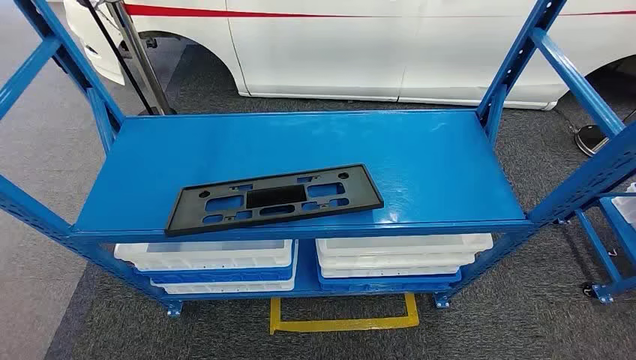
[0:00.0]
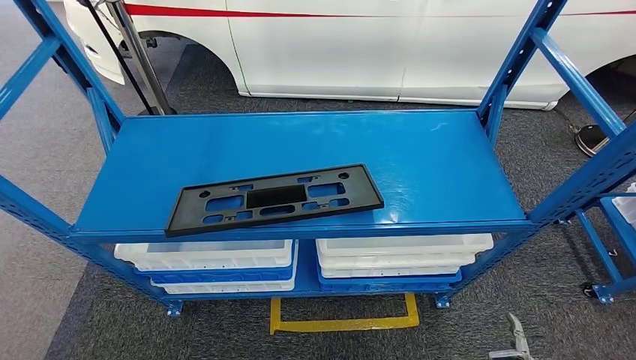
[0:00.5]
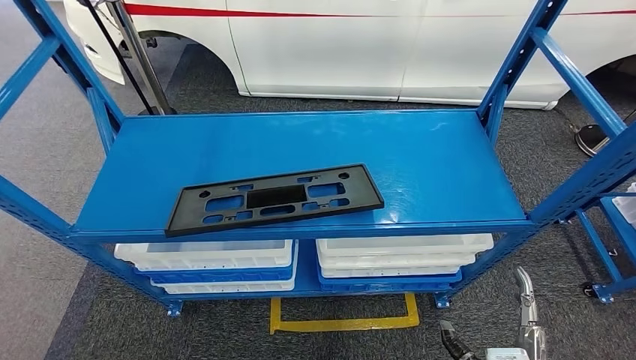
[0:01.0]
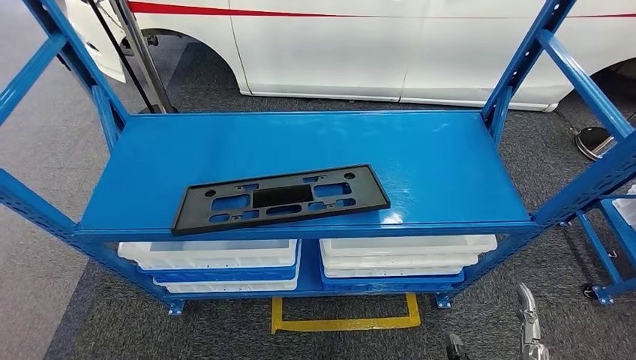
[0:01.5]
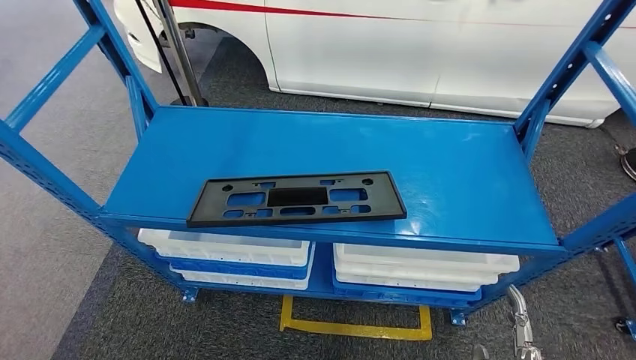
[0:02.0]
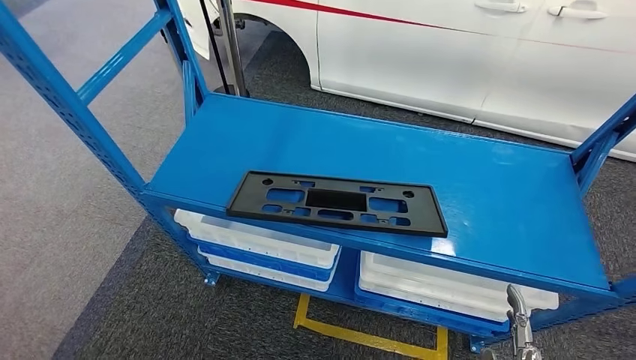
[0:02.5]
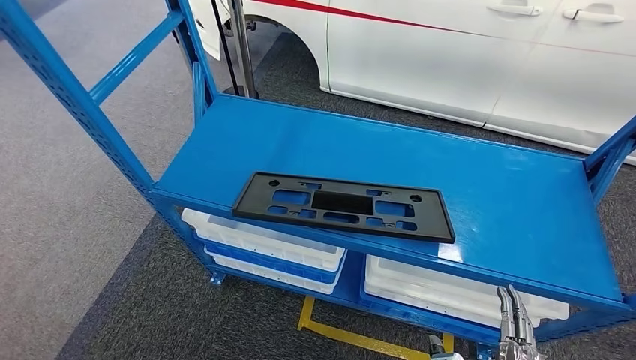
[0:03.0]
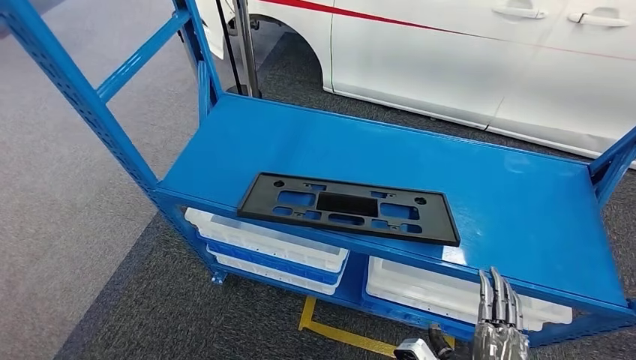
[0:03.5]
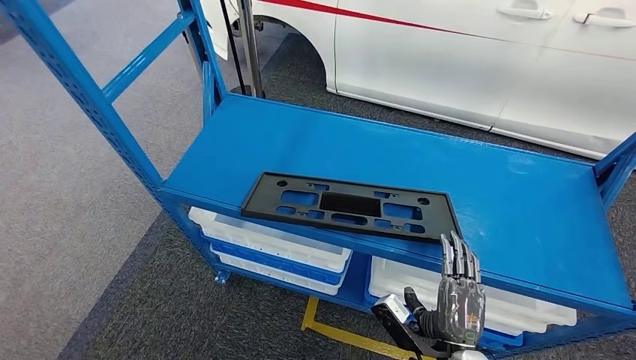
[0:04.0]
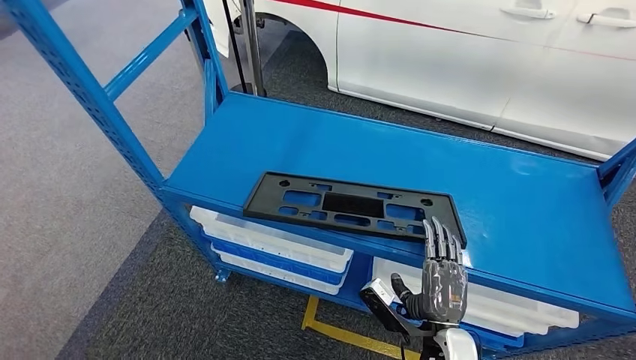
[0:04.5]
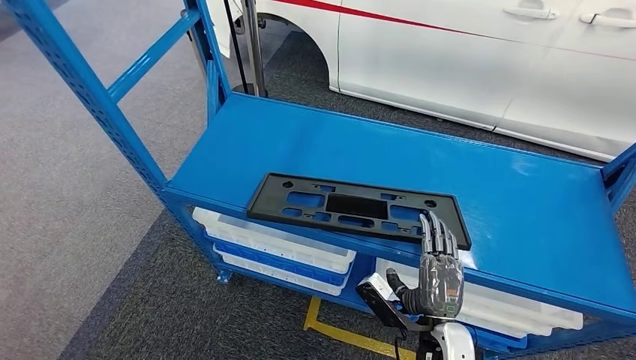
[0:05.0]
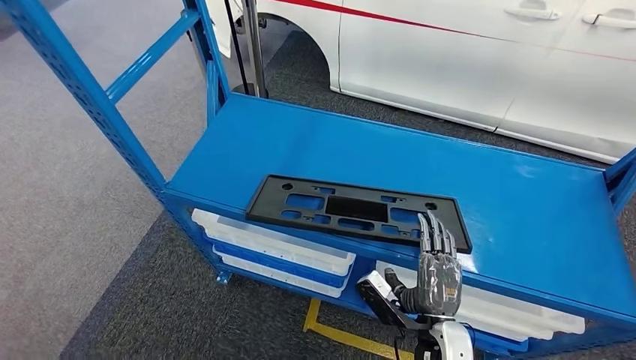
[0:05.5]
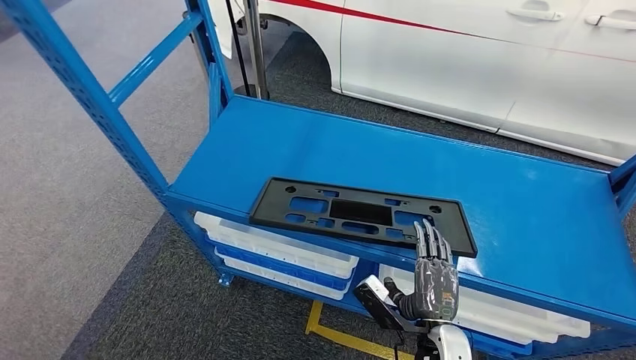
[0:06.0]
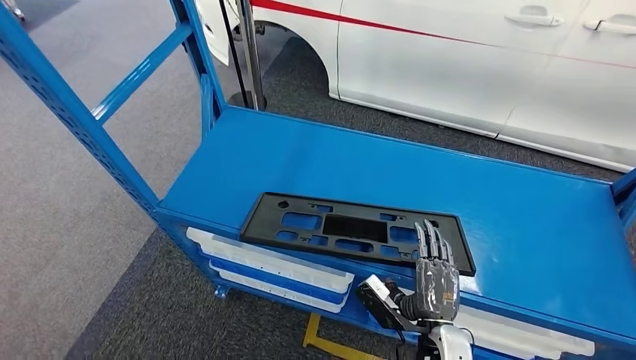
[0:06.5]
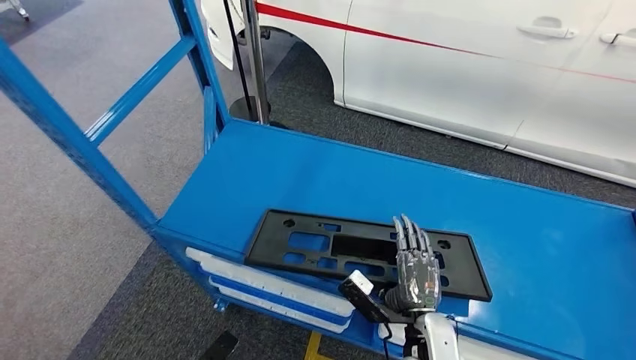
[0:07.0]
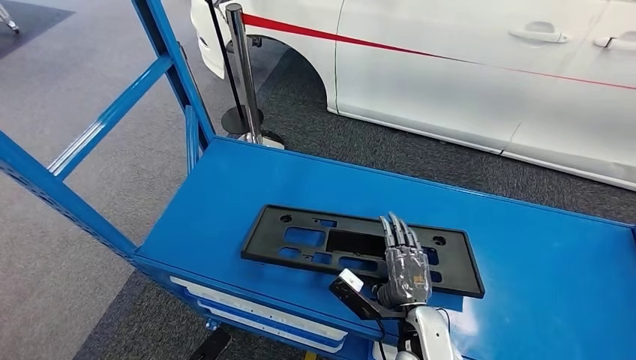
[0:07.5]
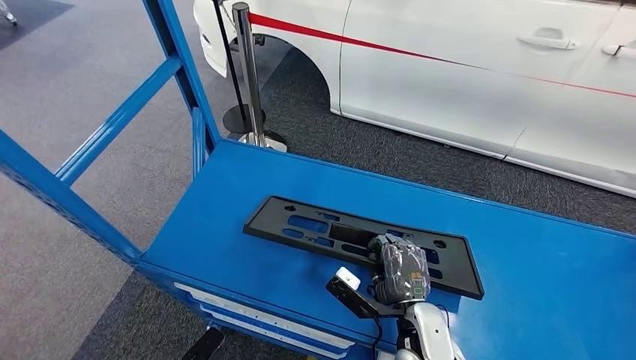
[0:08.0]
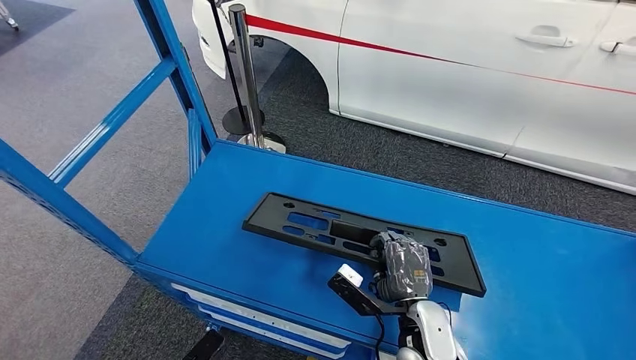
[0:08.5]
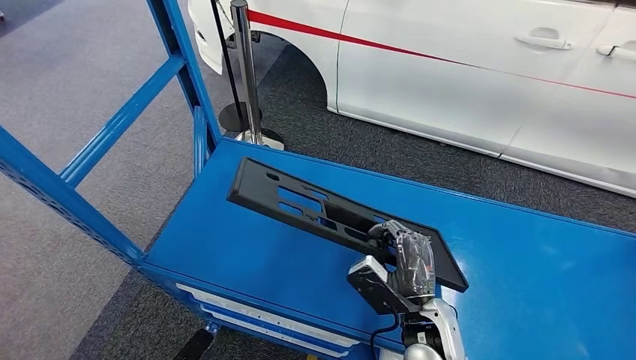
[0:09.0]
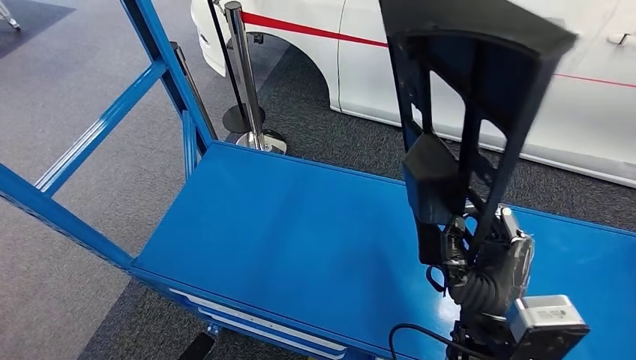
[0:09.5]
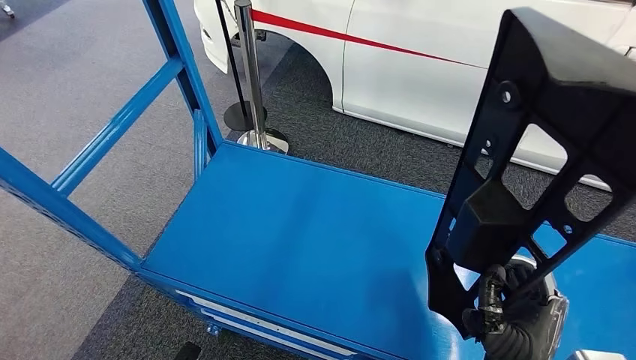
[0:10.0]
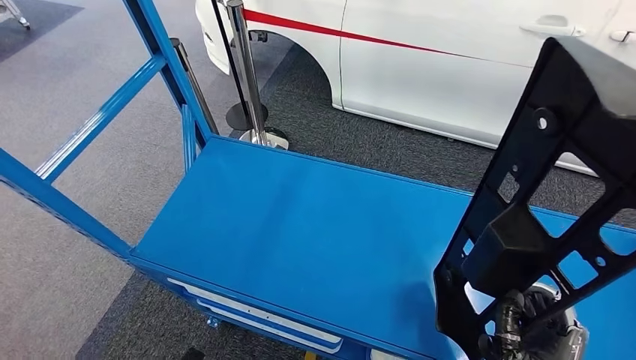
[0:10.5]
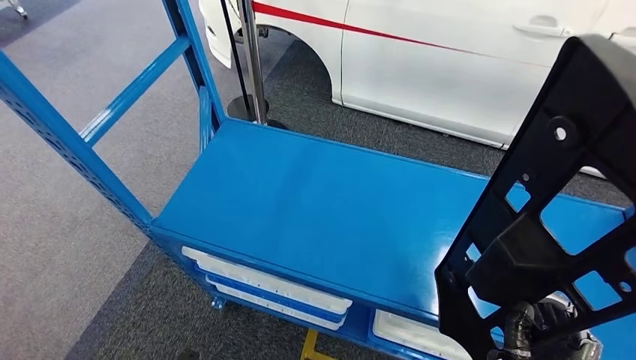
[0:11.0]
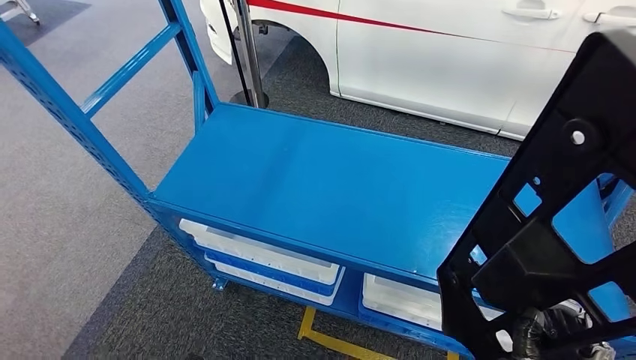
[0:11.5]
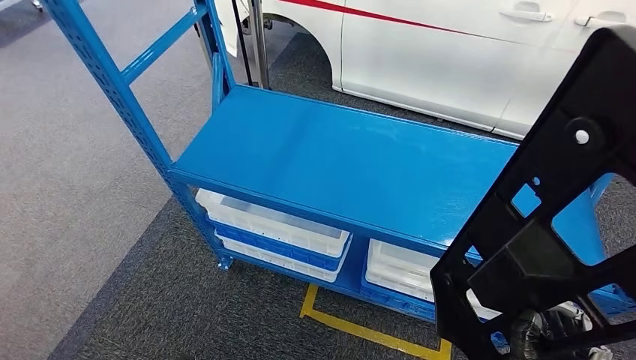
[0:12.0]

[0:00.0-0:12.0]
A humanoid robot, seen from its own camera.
Step, 0:00.0 to 0:10.5: Pick up the large material from the shelf.
0:04.0 to 0:06.0: The hands move only a little.

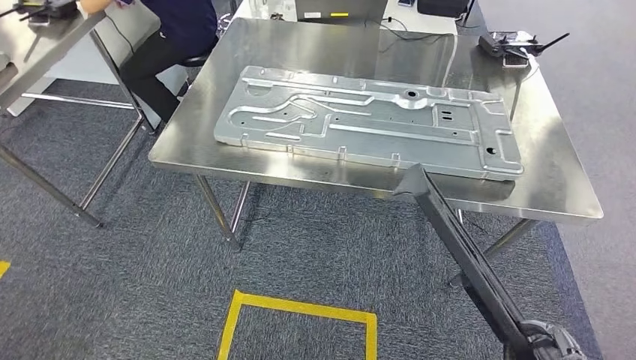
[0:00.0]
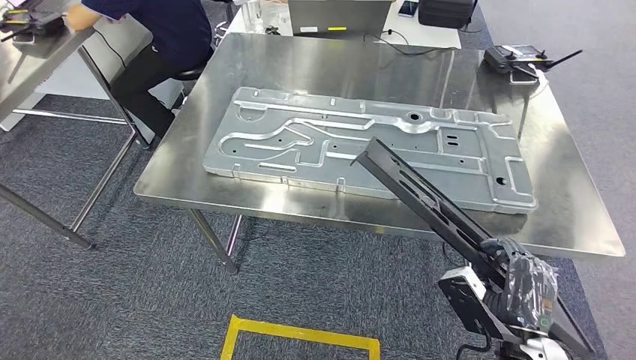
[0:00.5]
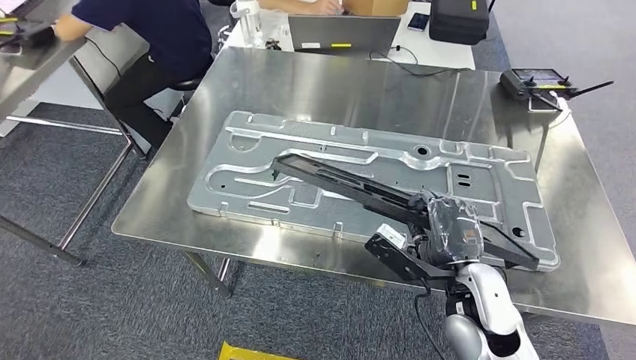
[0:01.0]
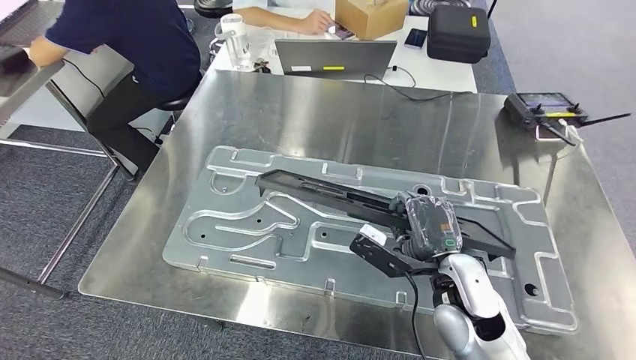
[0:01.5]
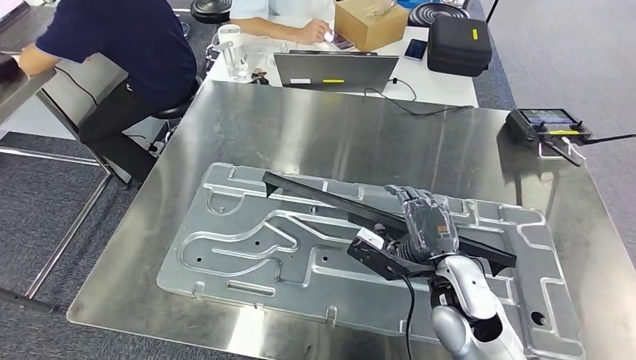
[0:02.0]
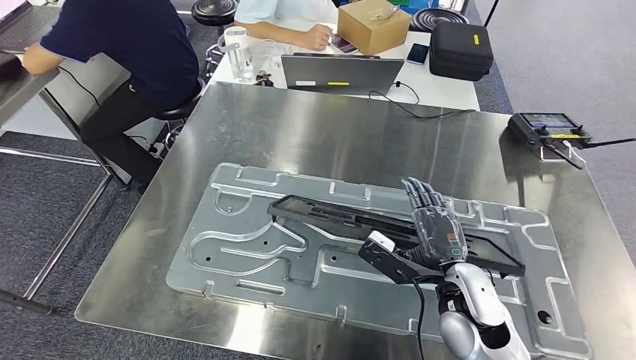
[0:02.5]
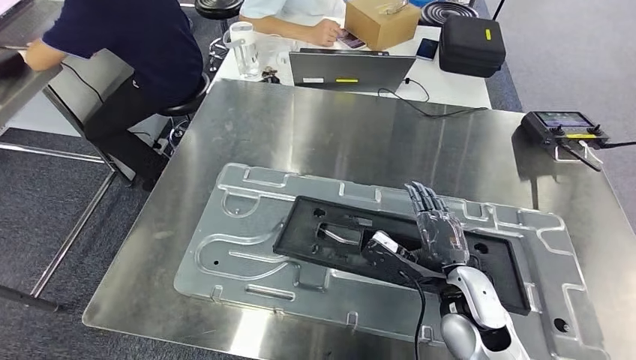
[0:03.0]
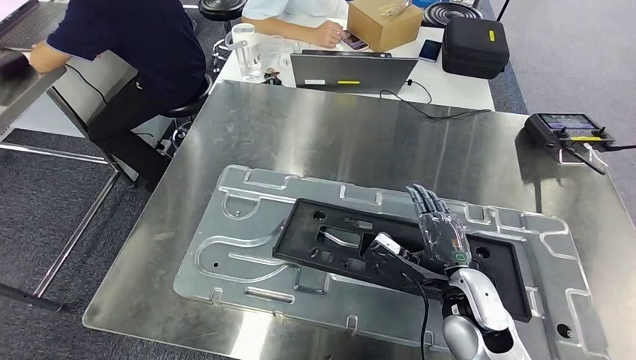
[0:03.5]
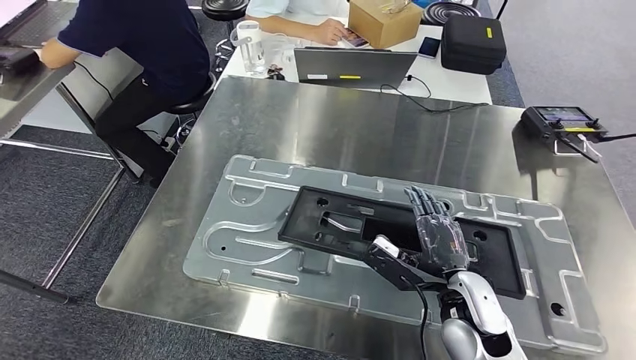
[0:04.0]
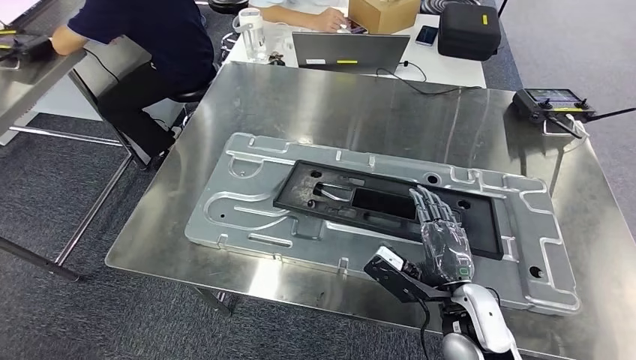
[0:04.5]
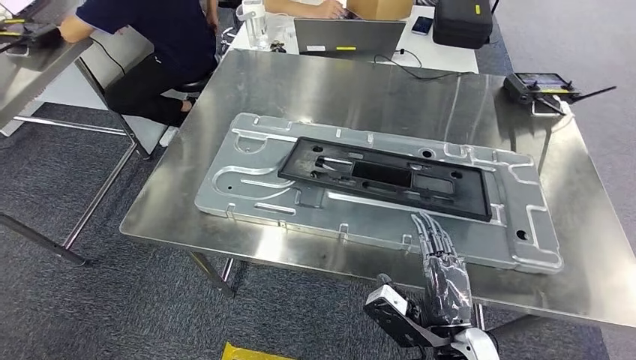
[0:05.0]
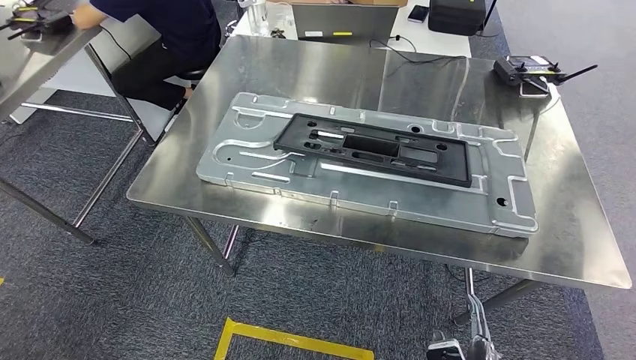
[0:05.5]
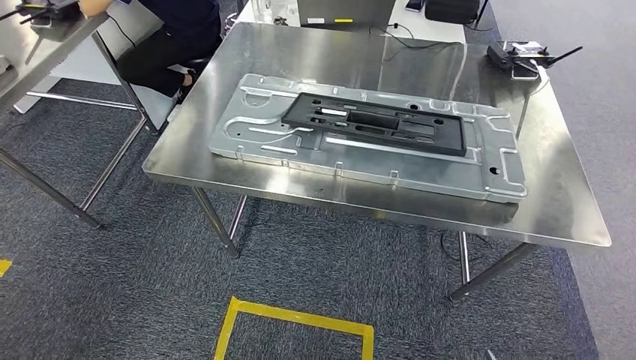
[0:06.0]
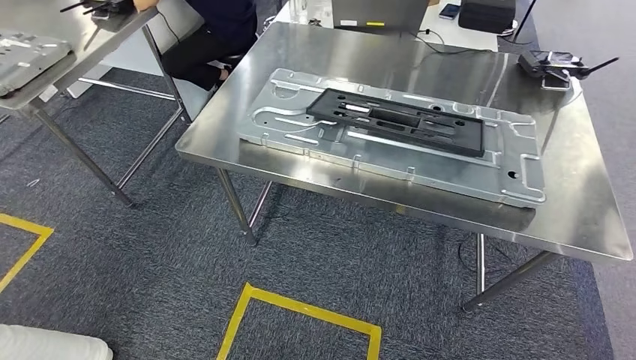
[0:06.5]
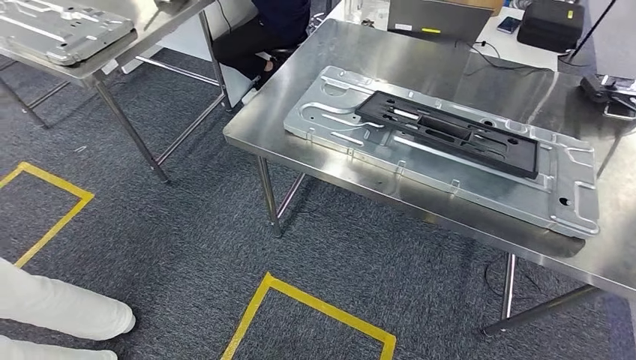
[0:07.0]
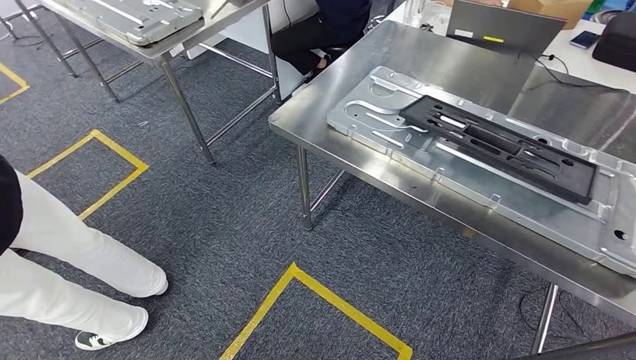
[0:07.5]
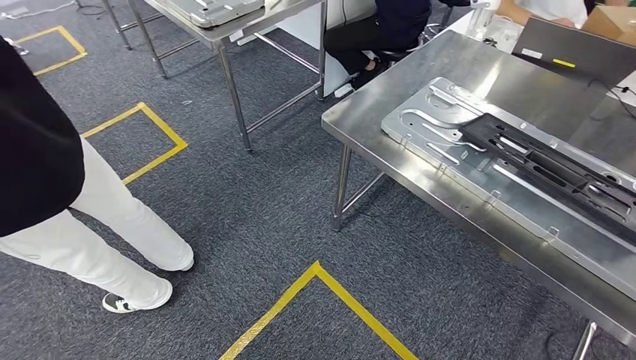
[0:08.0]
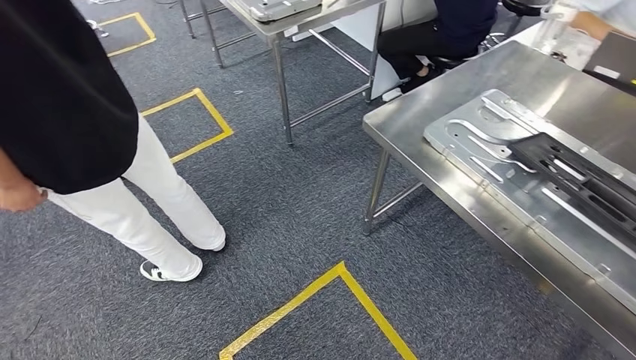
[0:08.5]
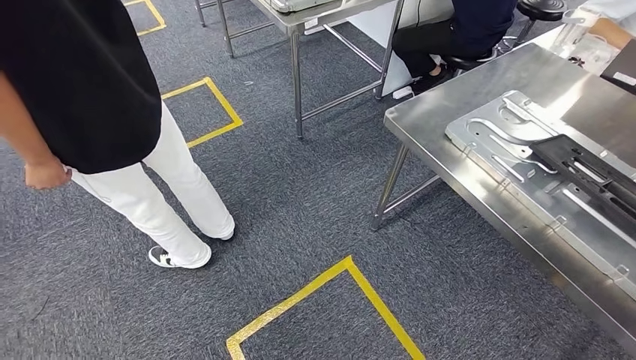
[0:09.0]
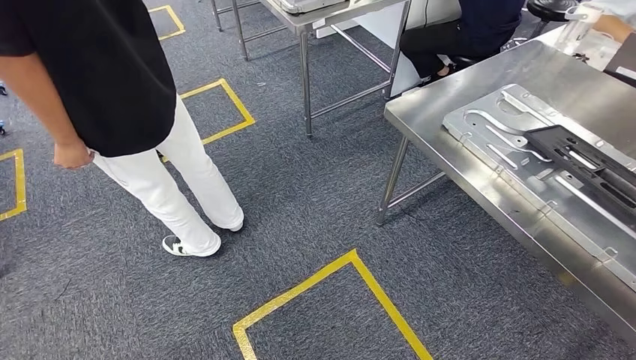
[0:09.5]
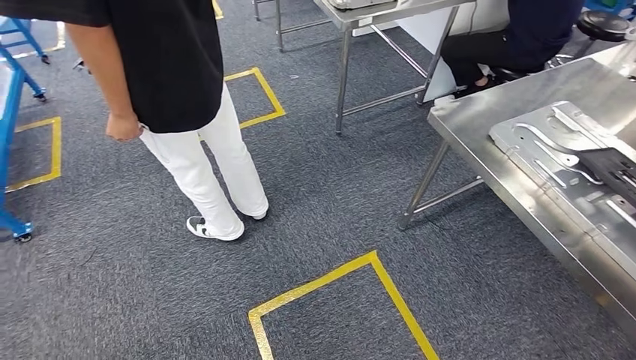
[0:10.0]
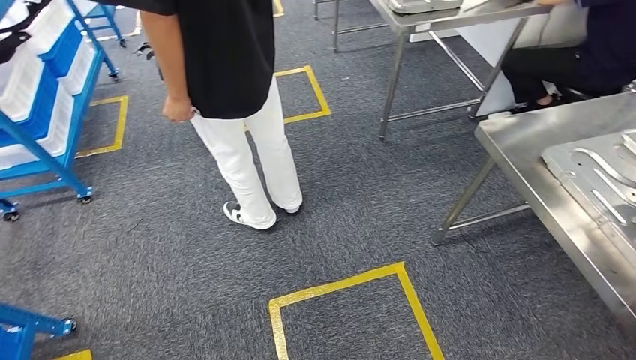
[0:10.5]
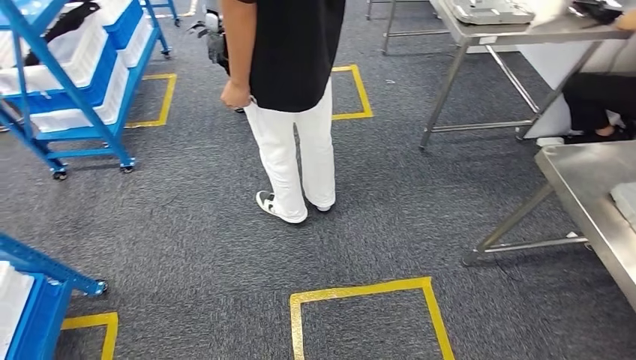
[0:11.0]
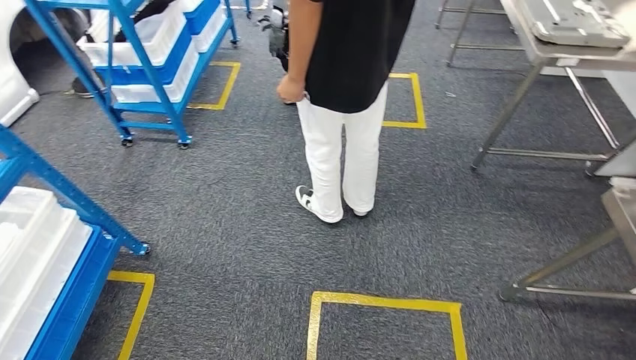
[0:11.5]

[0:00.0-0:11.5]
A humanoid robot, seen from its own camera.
Step, 0:02.5 to 0:04.5: Insert the large material into the corresponding hole on the workbench.
